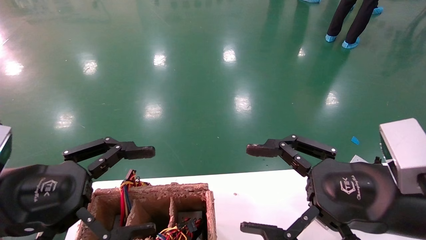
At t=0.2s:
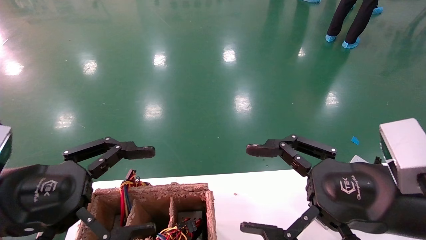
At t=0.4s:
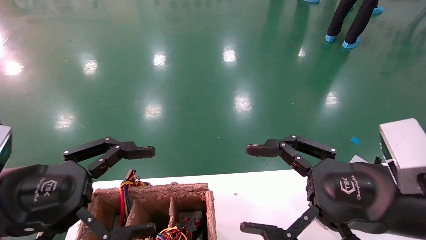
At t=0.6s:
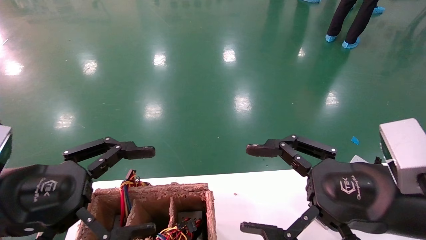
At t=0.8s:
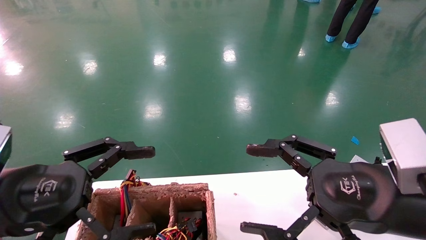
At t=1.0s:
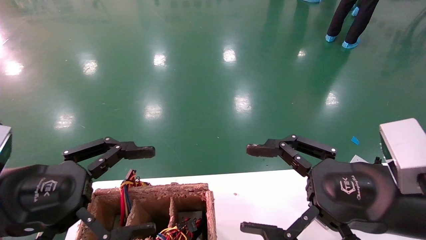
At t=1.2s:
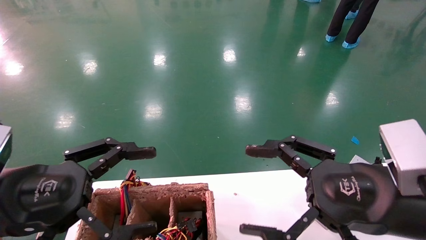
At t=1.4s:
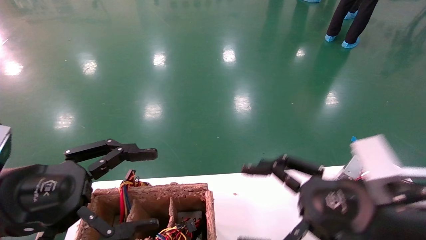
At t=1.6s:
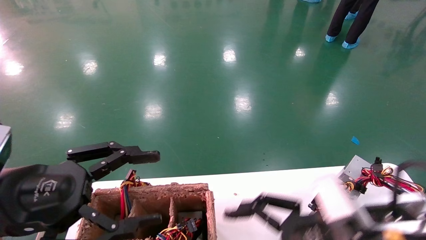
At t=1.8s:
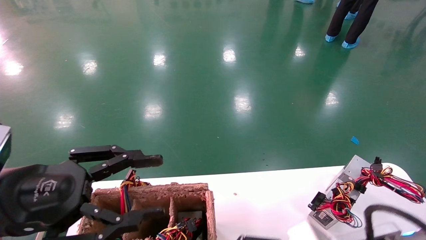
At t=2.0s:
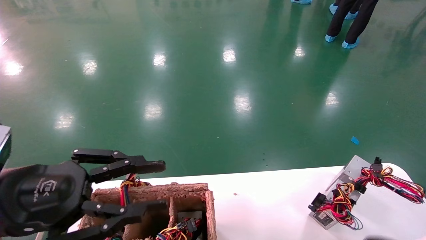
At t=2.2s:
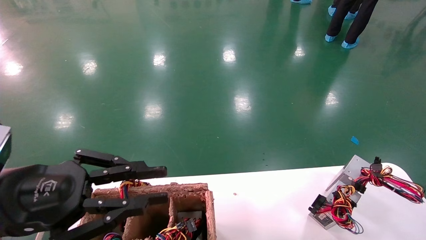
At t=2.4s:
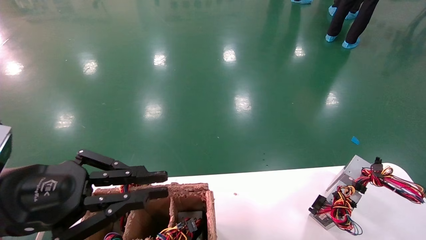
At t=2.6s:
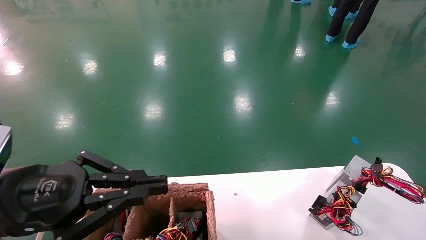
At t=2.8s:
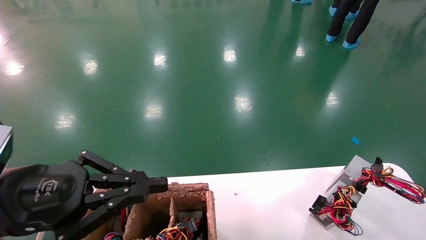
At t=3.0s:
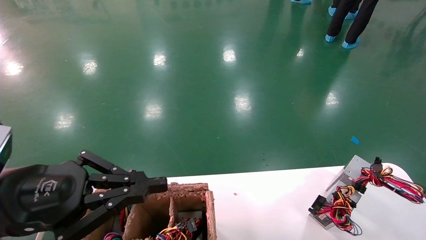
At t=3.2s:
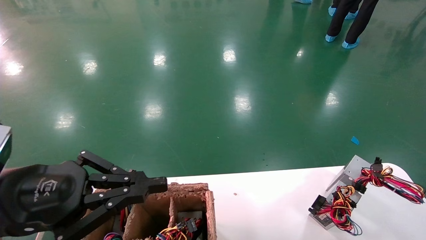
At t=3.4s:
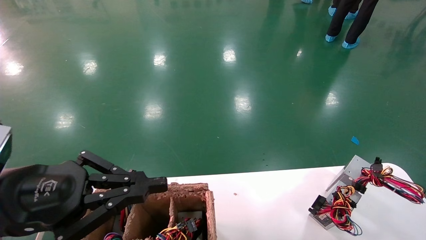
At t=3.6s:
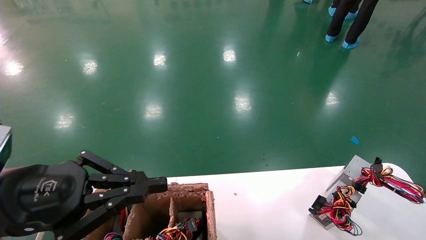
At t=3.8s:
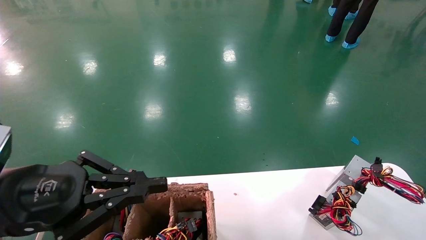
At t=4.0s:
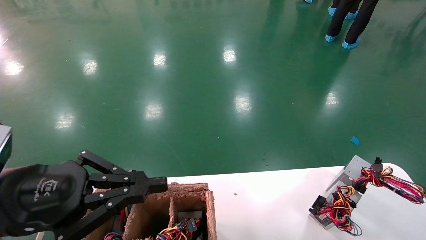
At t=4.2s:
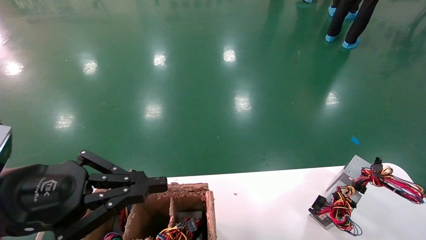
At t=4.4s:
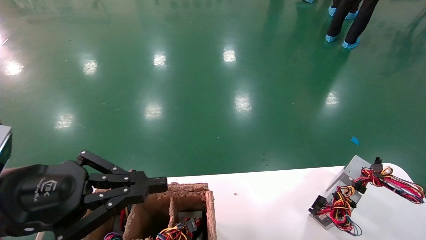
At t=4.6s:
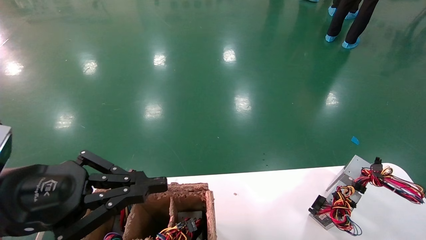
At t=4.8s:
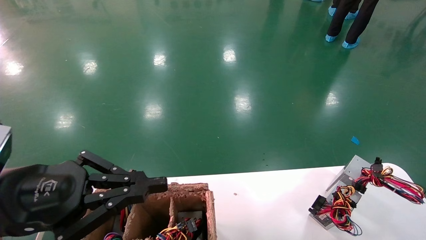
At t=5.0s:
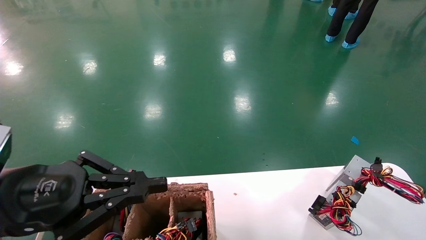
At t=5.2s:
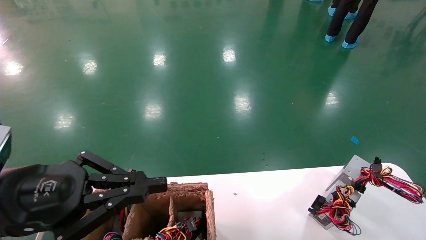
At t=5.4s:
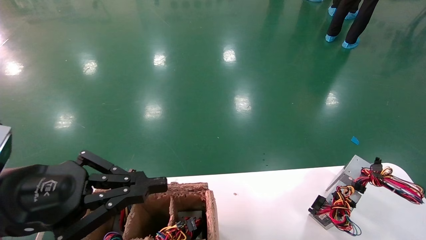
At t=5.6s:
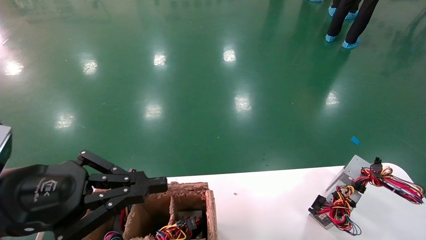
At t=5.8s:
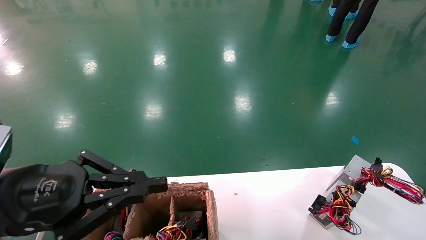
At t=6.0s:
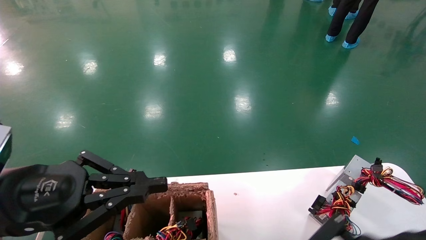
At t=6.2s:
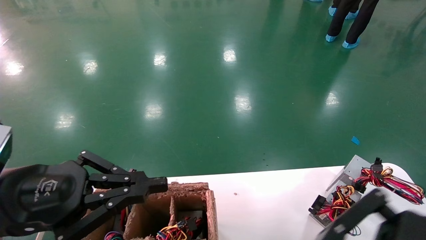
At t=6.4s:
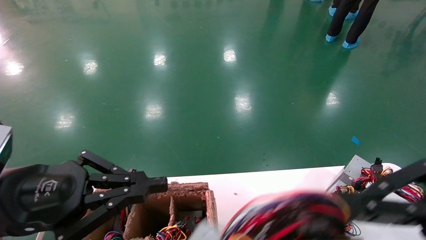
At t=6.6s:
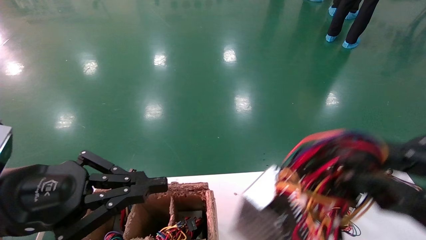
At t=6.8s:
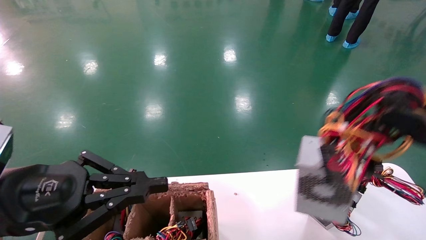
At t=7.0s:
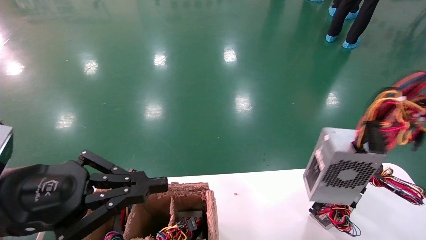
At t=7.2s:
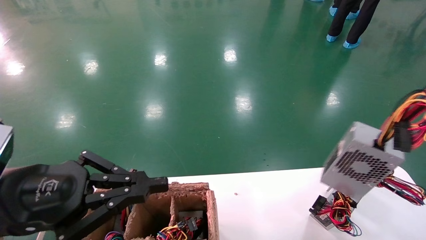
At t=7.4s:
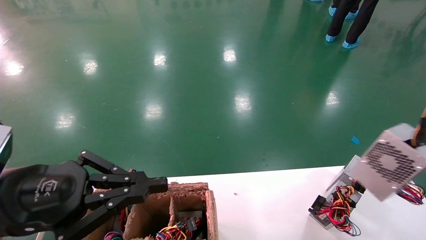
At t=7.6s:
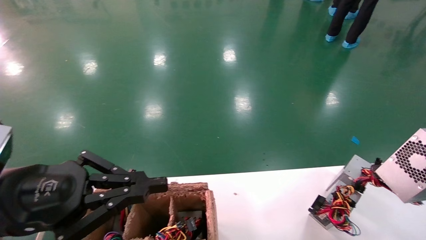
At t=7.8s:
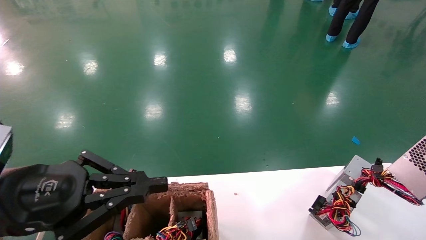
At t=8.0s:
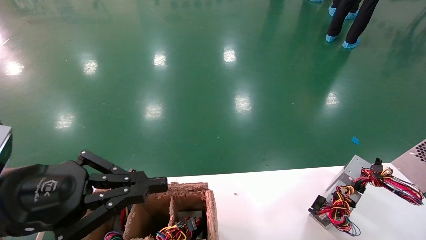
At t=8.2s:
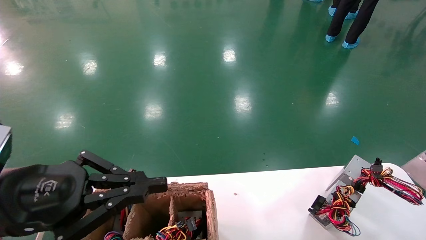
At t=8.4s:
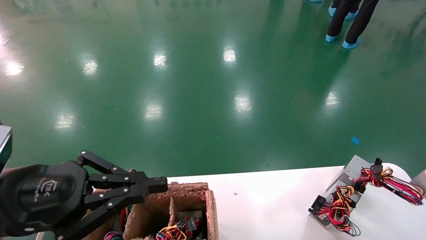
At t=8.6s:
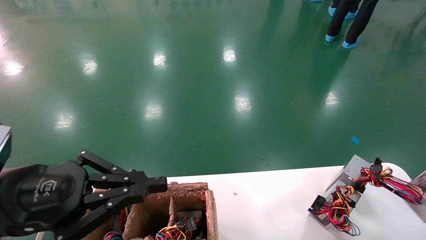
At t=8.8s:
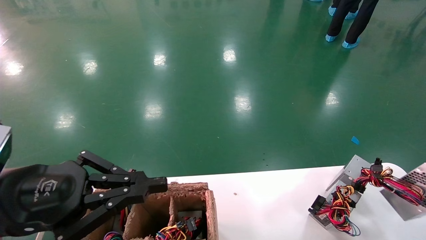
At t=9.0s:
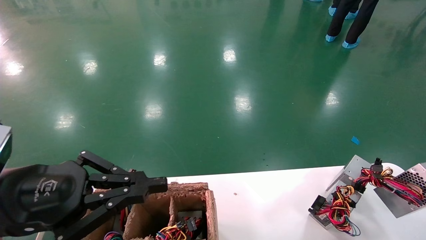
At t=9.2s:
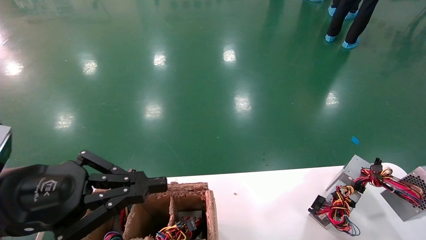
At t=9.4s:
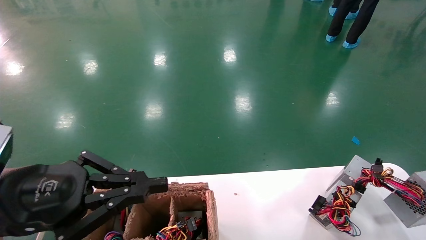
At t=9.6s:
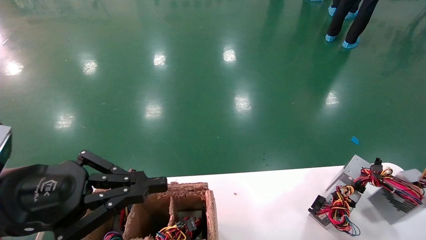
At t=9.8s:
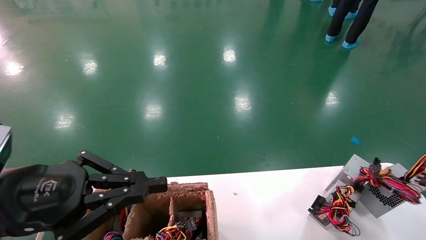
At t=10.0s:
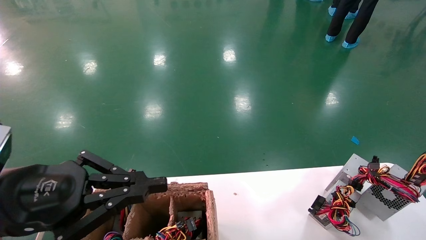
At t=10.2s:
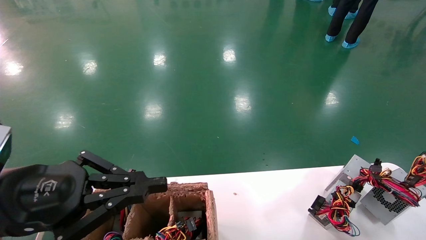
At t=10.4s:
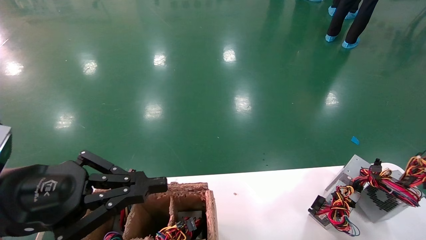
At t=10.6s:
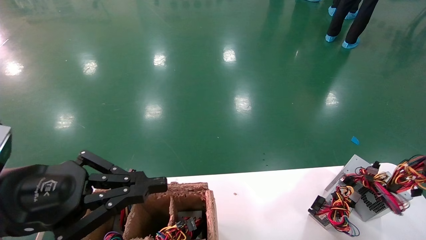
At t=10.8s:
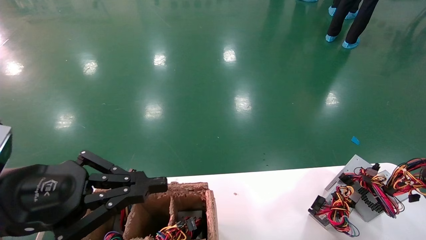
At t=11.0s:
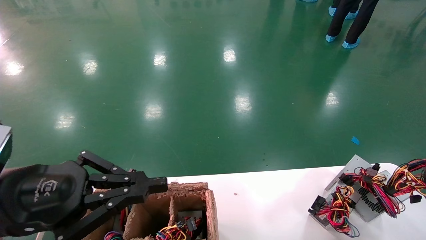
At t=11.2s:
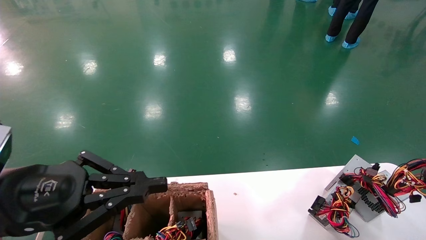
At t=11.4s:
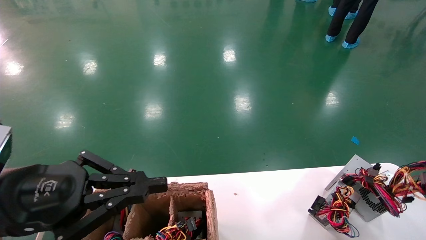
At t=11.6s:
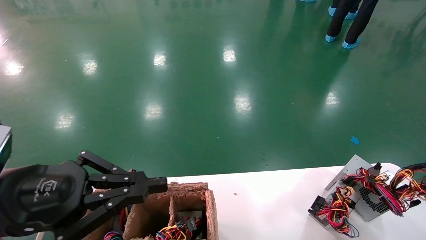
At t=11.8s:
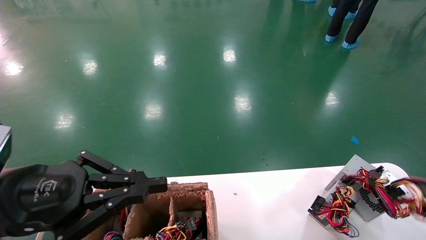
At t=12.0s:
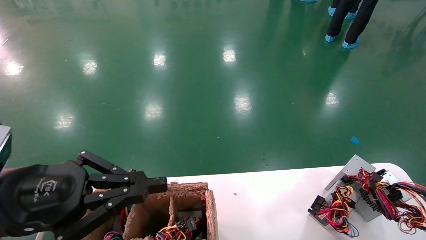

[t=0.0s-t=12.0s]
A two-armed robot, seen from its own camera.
Step, t=1.6s to t=4.8s: Grab the main unit power supply from the containment box.
Step, t=5.0s to t=11.4s: Place the main unit power supply in the designated area.
t=0.0s to t=1.6s: The right gripper heads downward, covering some 5 cm.
t=1.6s to t=3.0s: The left gripper closes up. Meanwhile the right gripper moves downward, some 10 cm.
t=4.4s to t=6.0s: The right gripper shifts approximately 20 cm upward.
t=6.0s to t=7.6s: The right gripper goes some 30 cm to the right.
t=7.6s to t=9.0s: The right gripper shifts some 10 cm downward and to the right.
t=9.0s to t=10.4s: The right gripper is displaced forward and downward by some 10 cm.
t=10.4s to t=12.0s: The right gripper opens.

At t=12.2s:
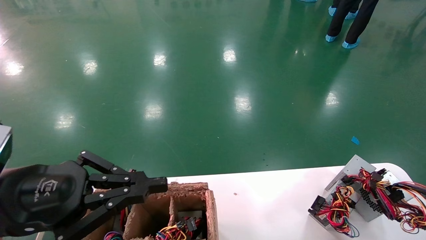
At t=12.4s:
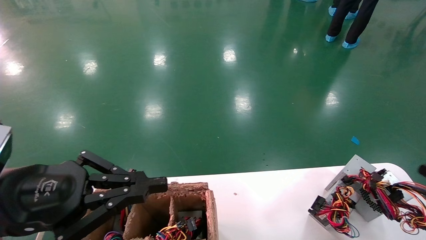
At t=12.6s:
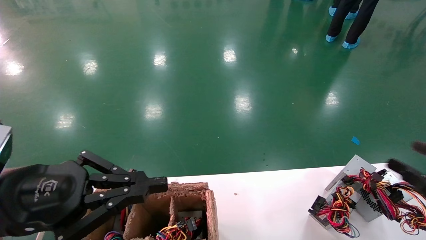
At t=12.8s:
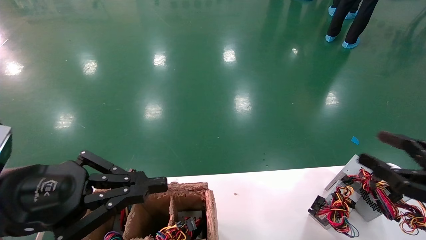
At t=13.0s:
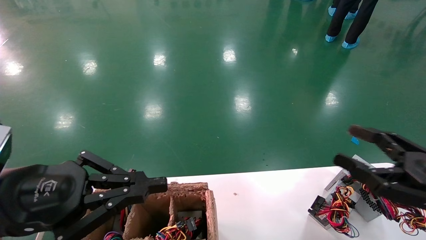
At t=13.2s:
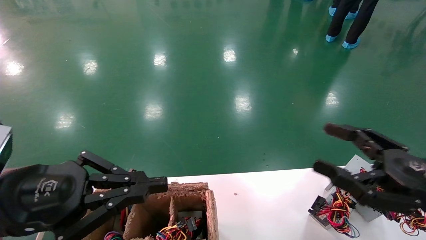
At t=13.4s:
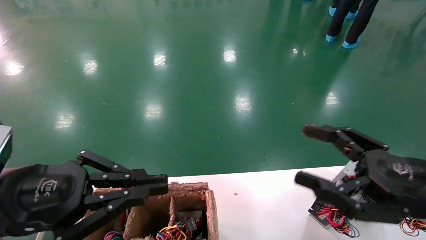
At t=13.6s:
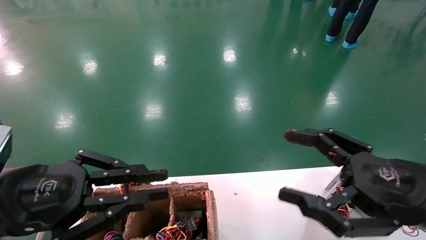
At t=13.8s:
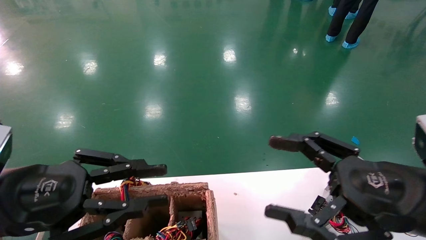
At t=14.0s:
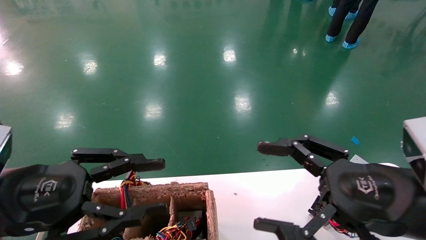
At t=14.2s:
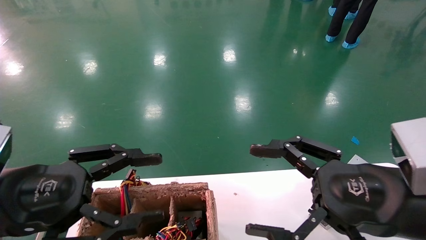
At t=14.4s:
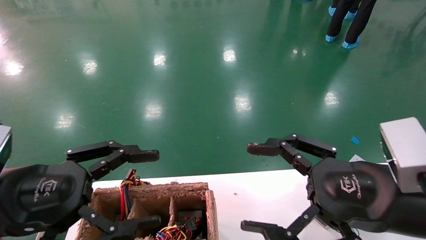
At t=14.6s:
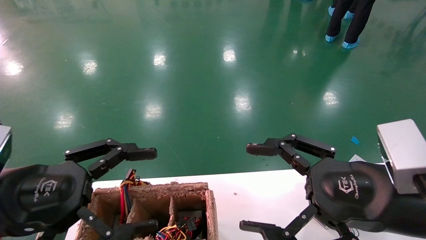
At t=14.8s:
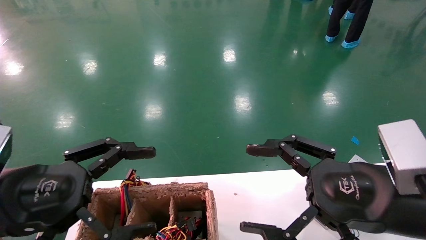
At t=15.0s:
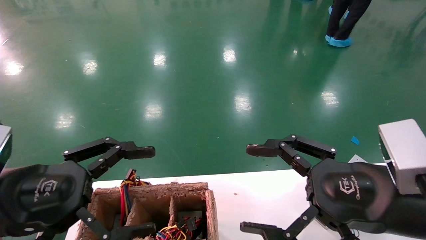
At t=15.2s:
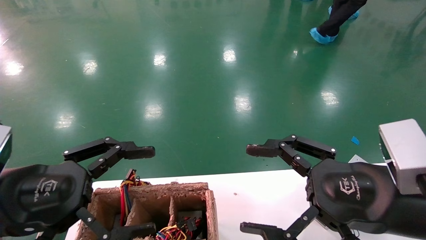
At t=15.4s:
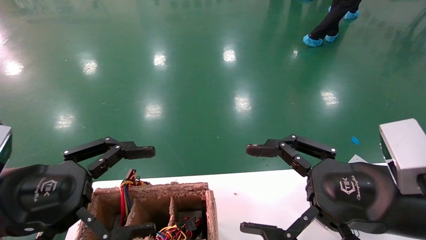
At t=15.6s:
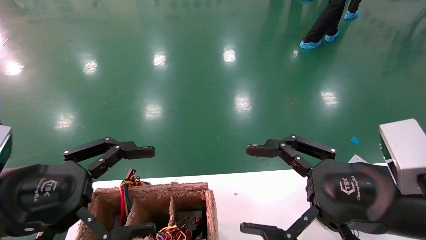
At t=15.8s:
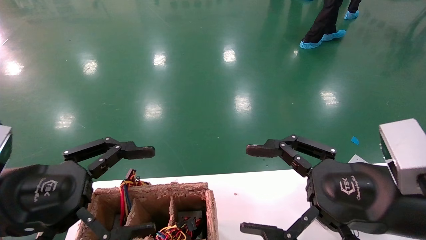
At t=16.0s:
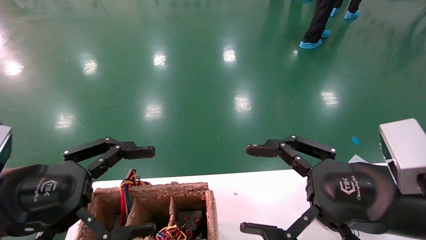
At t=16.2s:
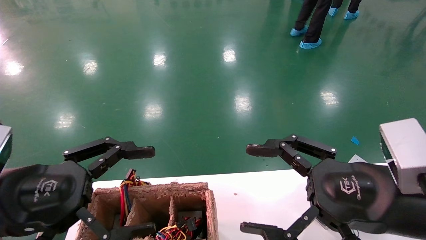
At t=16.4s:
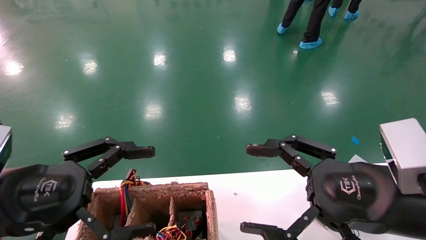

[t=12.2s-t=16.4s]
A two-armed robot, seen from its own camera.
t=12.2s to t=13.6s: The right gripper travels to the left by approximately 25 cm.
t=13.6s to t=15.0s: The left gripper opens its fingers.
t=15.0s to t=16.4s: Neither gripper changes place.
